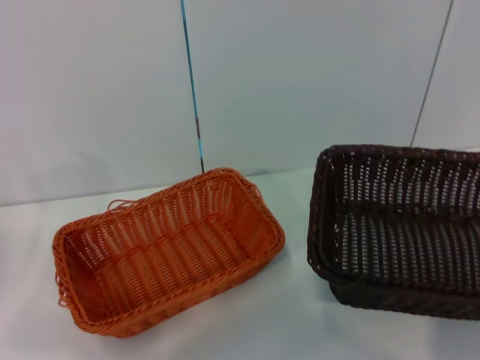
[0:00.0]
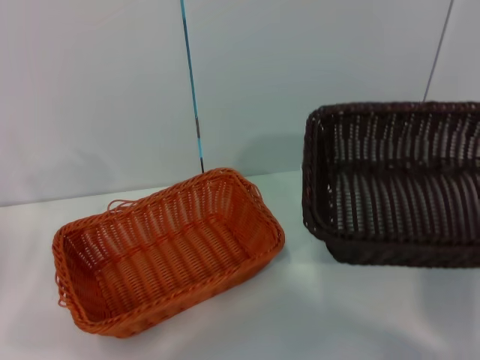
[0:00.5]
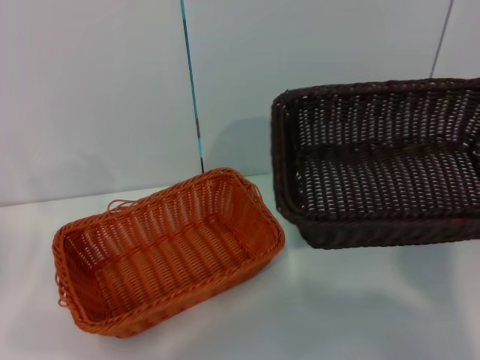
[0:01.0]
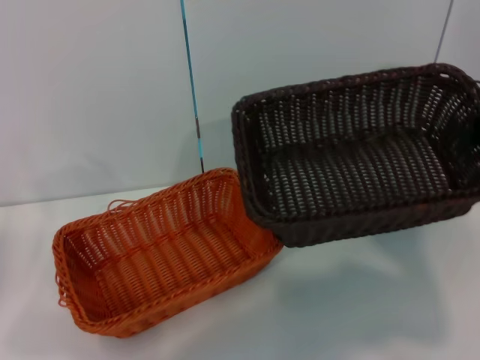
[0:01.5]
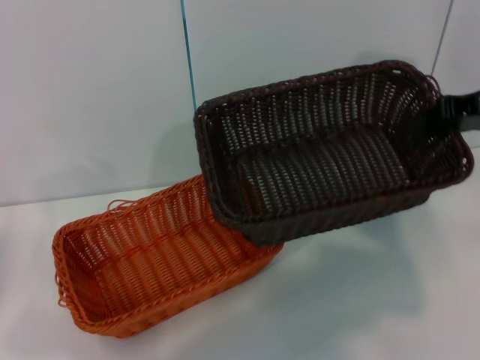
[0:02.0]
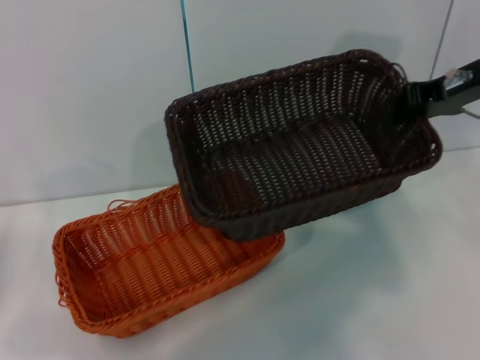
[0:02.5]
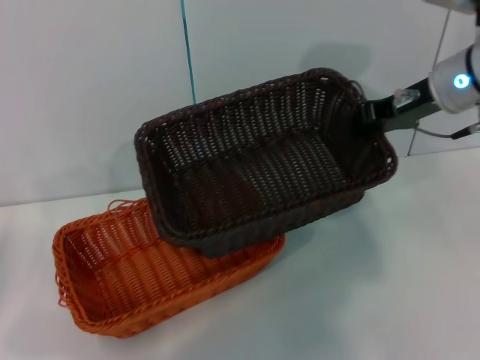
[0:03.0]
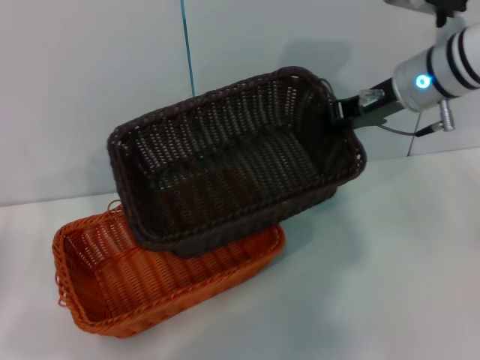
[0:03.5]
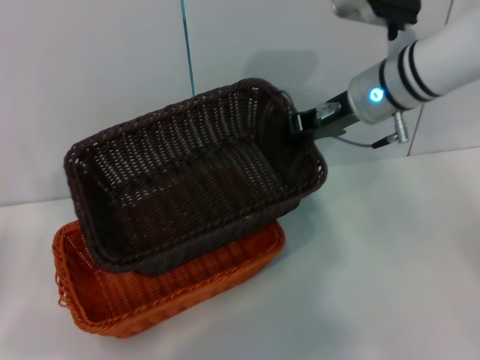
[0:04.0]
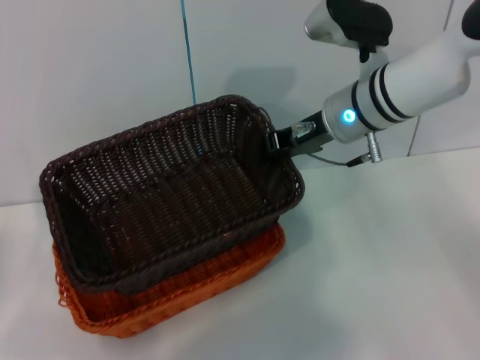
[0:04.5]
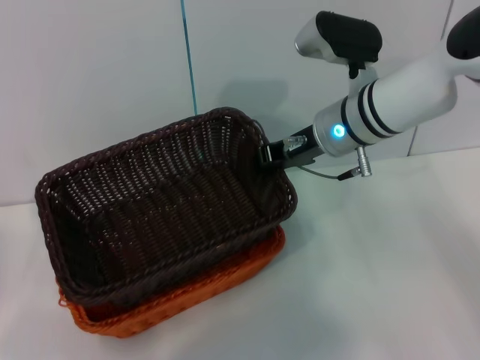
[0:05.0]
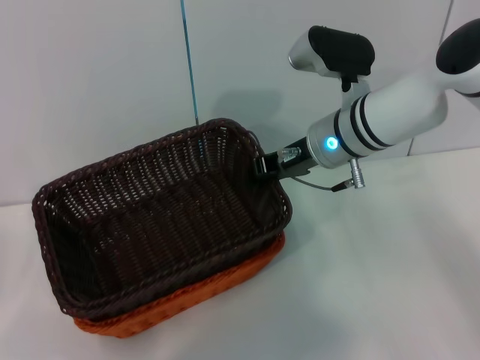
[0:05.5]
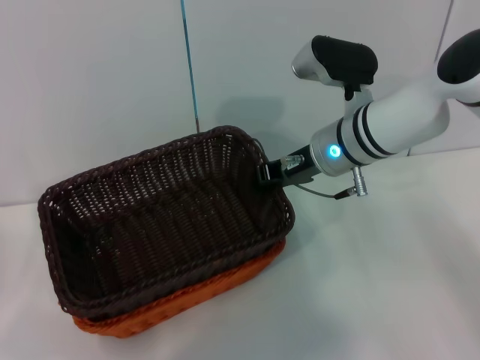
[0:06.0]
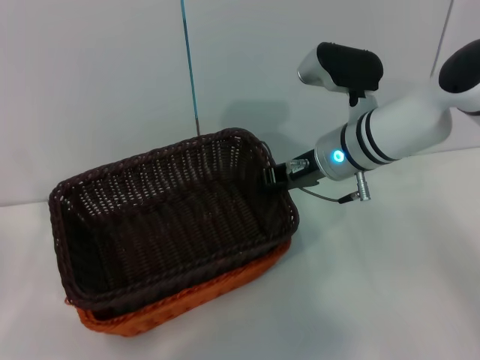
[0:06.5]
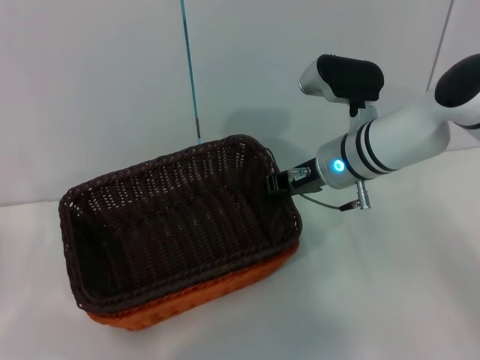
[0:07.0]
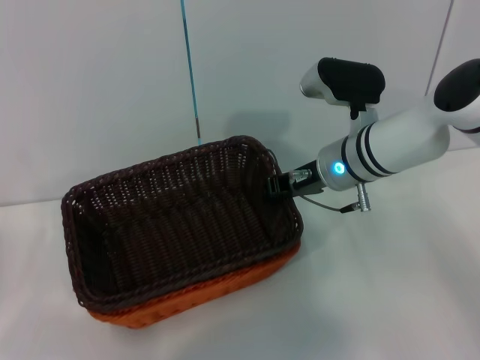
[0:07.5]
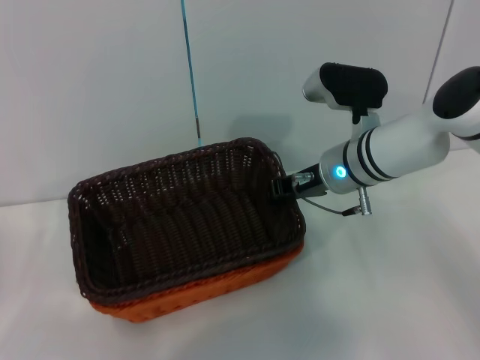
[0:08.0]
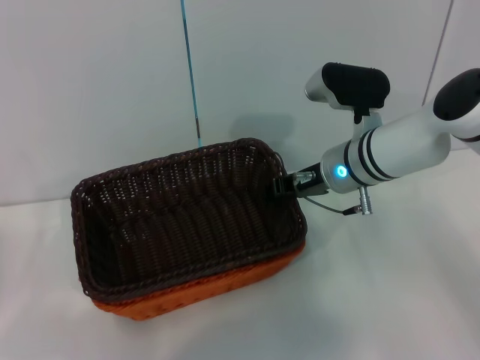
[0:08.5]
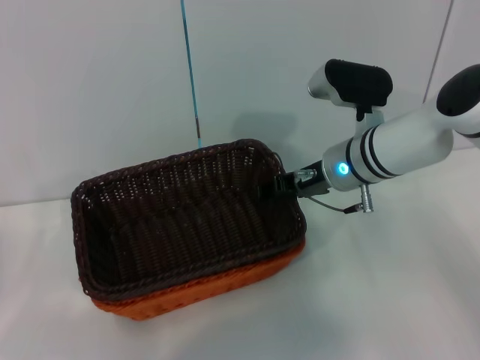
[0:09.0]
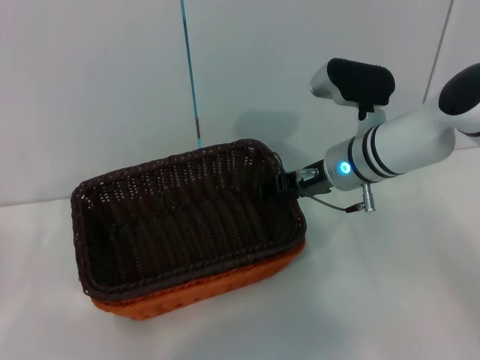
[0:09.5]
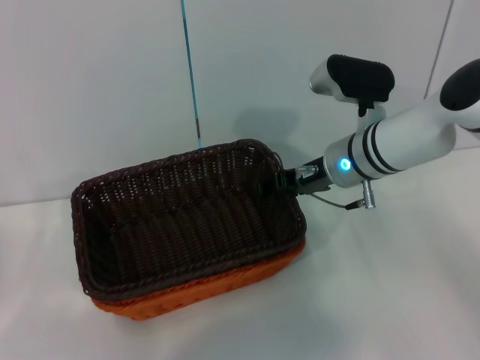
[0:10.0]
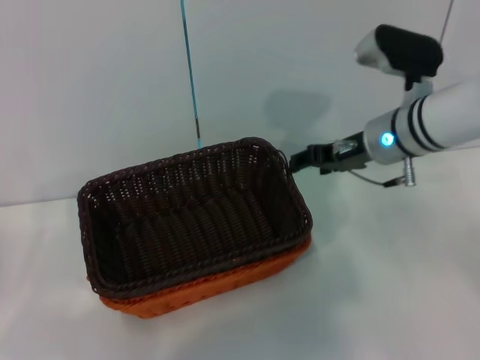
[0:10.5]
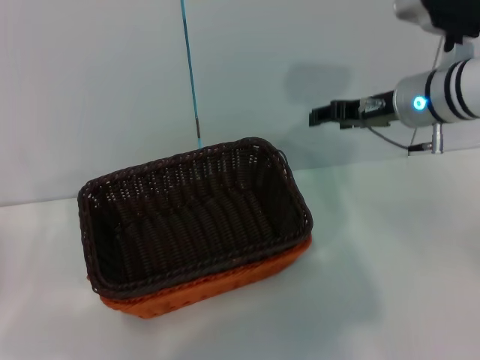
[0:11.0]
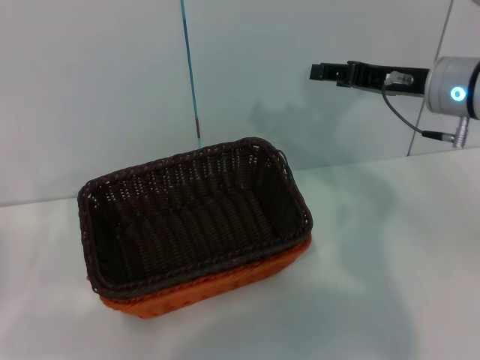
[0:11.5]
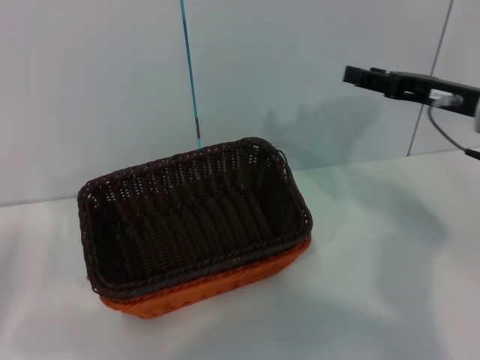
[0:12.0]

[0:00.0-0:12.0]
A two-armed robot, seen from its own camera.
Step, 0:00.0 to 0:10.0: Place the dark basket on the light basket with the right gripper.
0:00.0 to 0:02.0: The right gripper travels forward and to the left by some 20 cm.
0:02.0 to 0:04.0: The right gripper moves to the left and forward, some 15 cm.
0:04.0 to 0:06.0: The right gripper goes roughly 5 cm downward.
0:06.0 to 0:08.0: The grippers move only a little.
0:08.0 to 0:10.0: The right gripper opens its fingers.
0:10.0 to 0:12.0: The right gripper is displaced to the right, backward and upward by roughly 15 cm.
